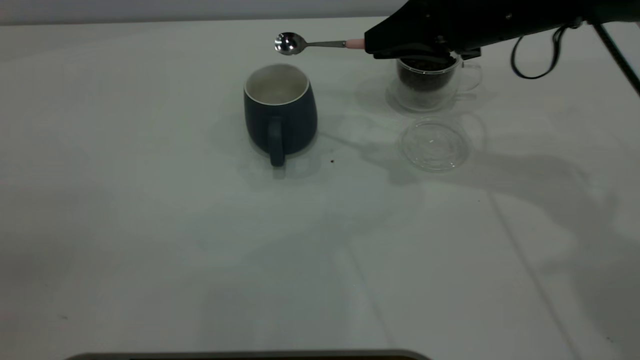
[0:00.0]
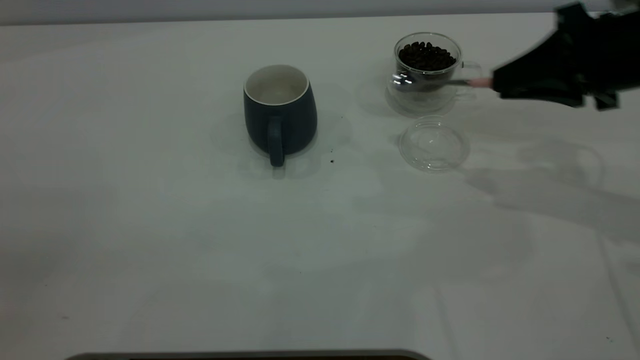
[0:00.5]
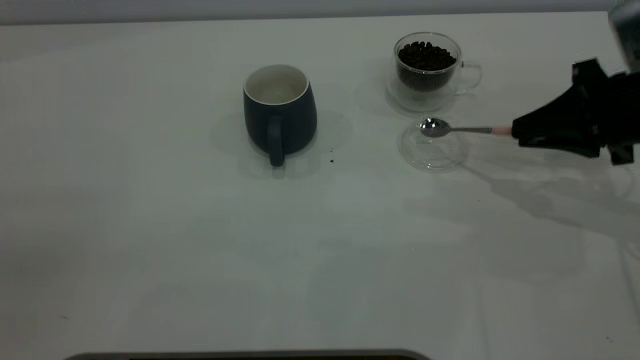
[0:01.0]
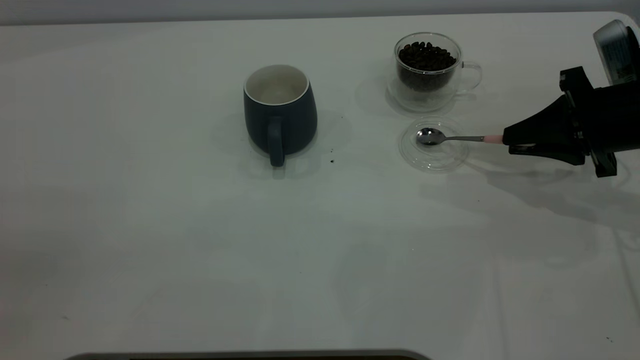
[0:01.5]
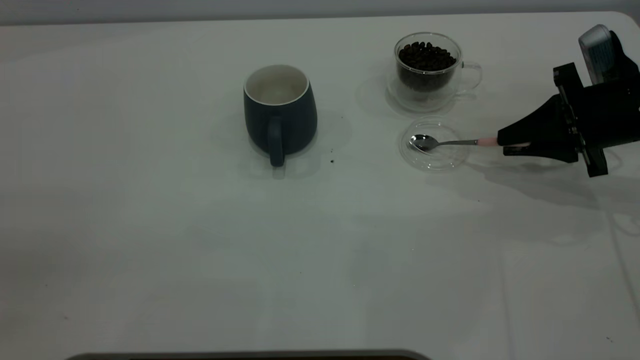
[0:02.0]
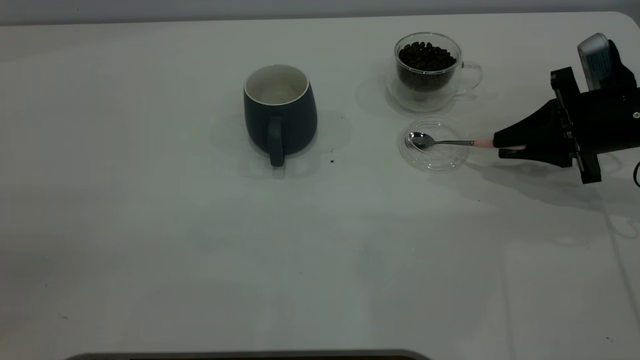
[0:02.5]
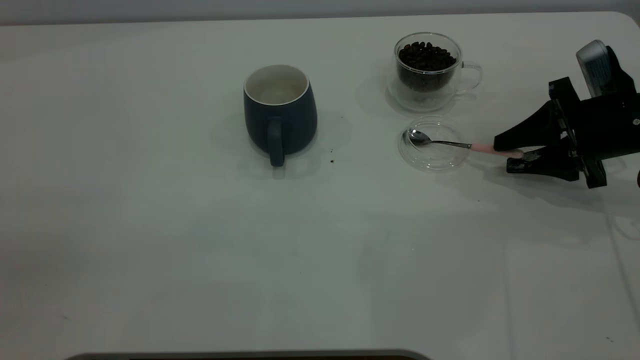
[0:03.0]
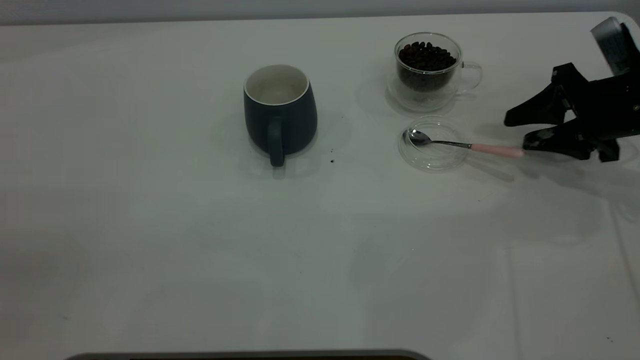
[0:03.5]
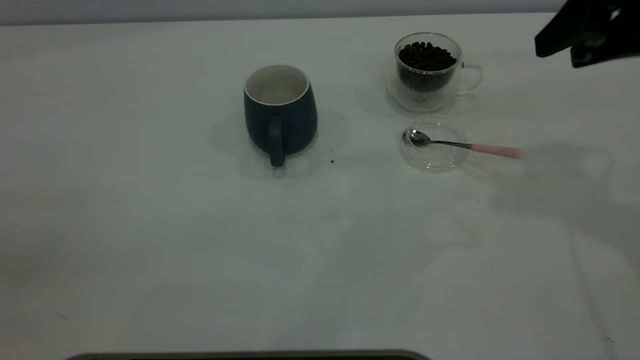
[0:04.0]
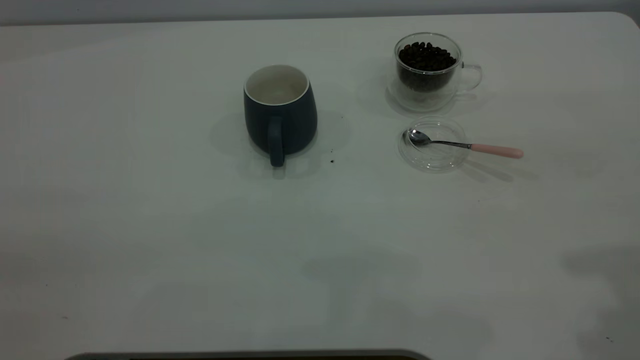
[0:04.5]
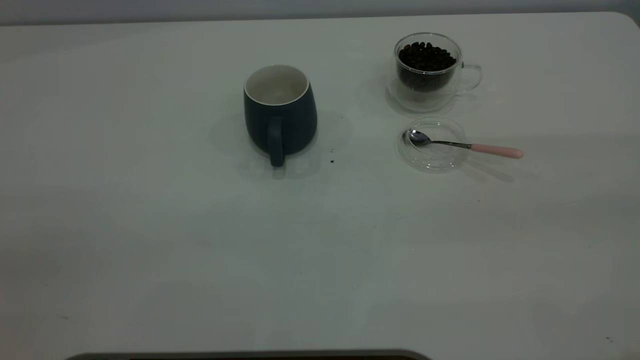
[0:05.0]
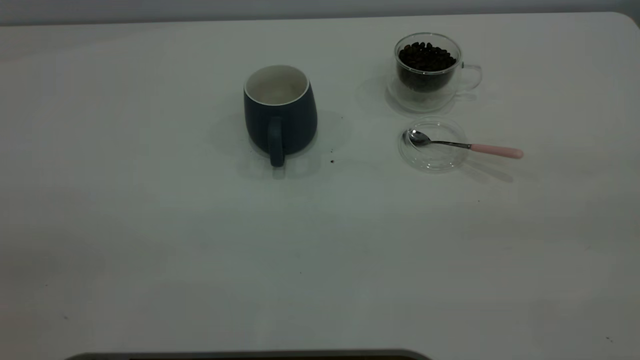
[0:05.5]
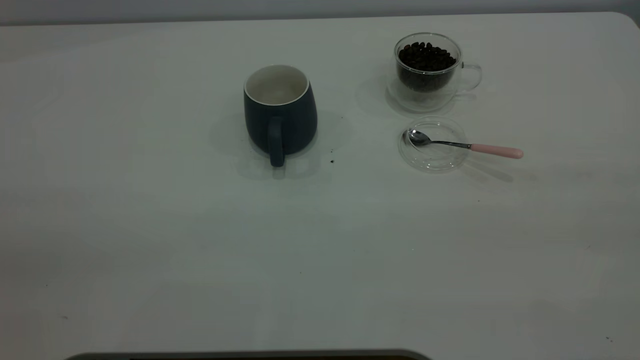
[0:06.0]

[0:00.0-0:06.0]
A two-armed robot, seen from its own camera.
Task of the whole recording: the left gripper place the grey cup in the center of the table, the right gripper take the pink spoon from the cup lid and scoop out the coffee beans from the coffee cup and put them into the grey cup, the right gripper put the spoon back into the cup lid.
Step, 0:00.0 to 0:03.5: Place the spoon back in its original place.
0:00.0 to 0:02.0: The right gripper goes roughly 15 cm to the right and downward.
0:02.0 to 0:04.0: The right gripper shifts approximately 20 cm upward, and opens.
0:04.0 to 0:06.0: The right gripper travels backward by approximately 30 cm.

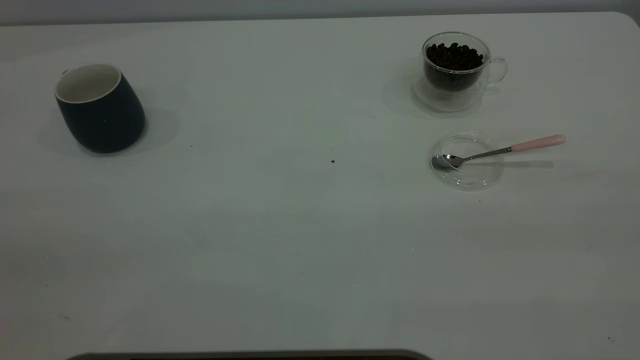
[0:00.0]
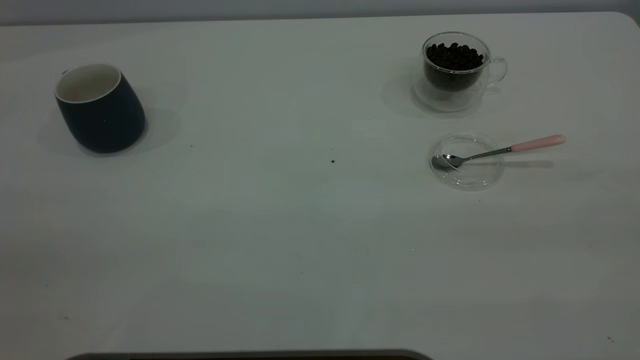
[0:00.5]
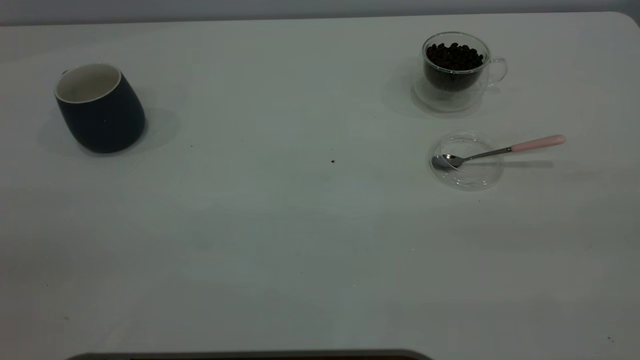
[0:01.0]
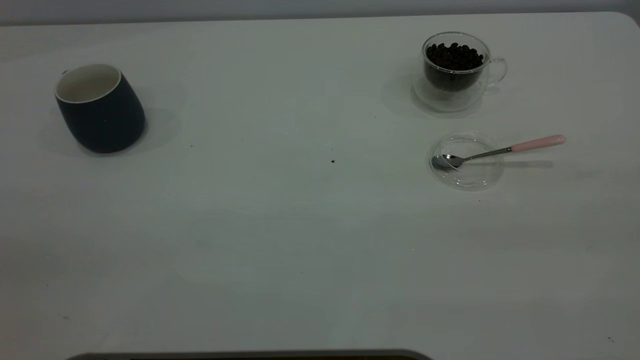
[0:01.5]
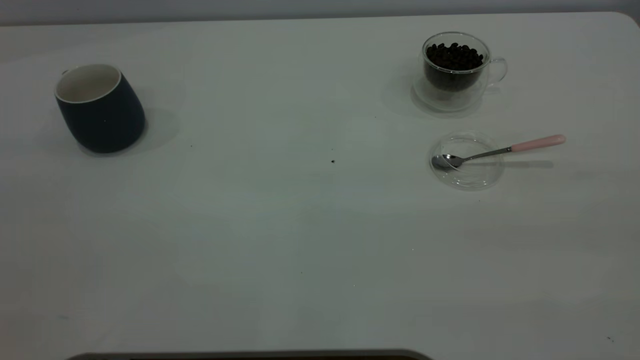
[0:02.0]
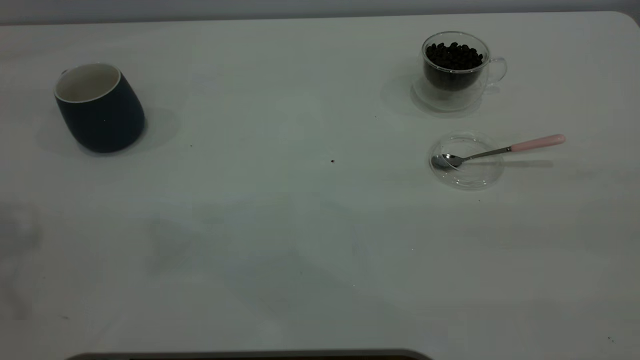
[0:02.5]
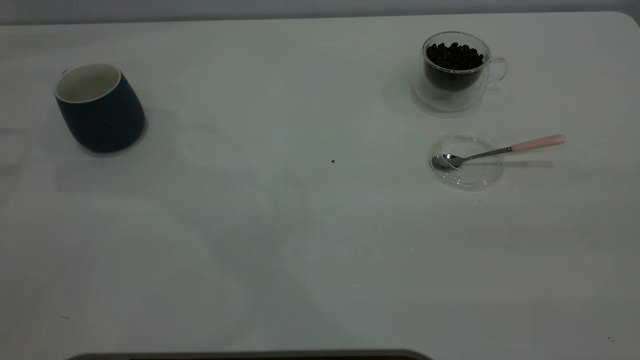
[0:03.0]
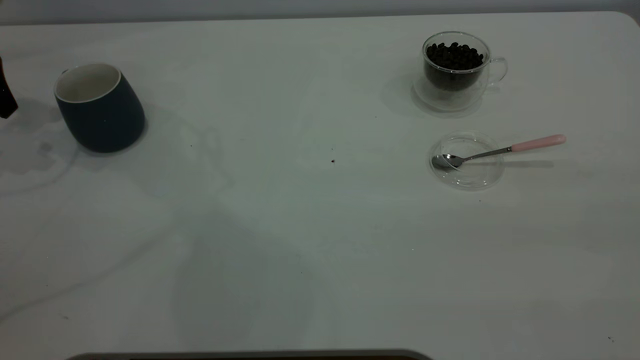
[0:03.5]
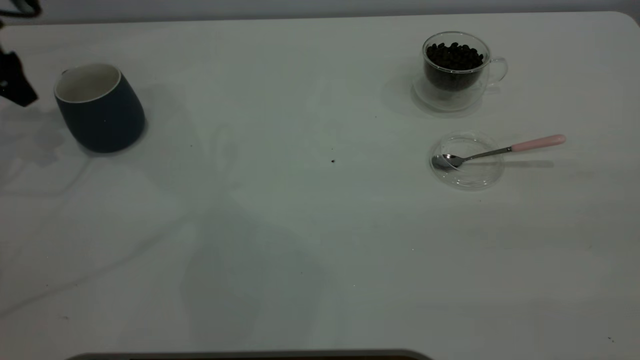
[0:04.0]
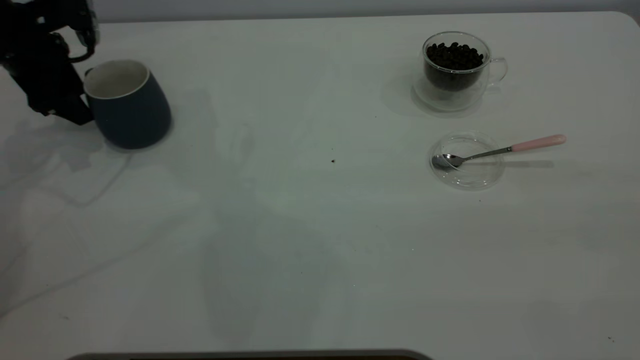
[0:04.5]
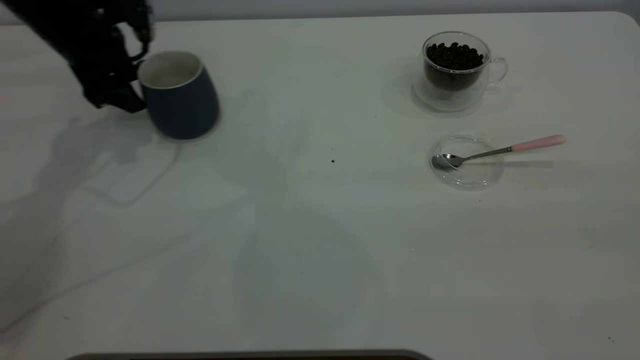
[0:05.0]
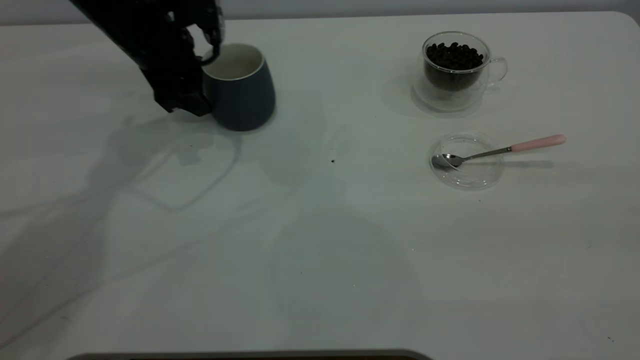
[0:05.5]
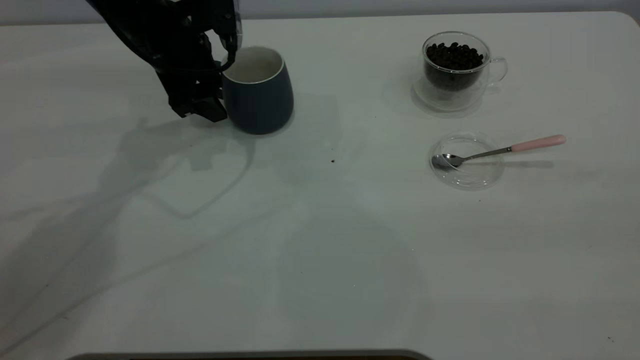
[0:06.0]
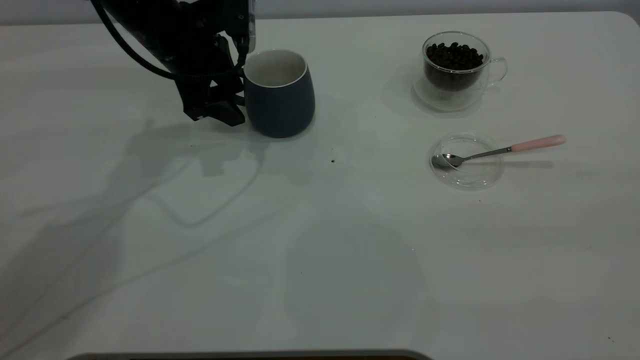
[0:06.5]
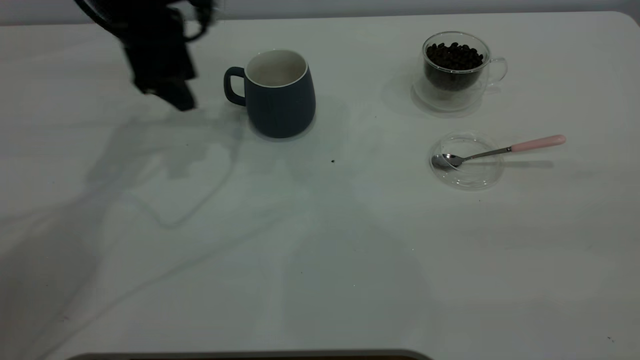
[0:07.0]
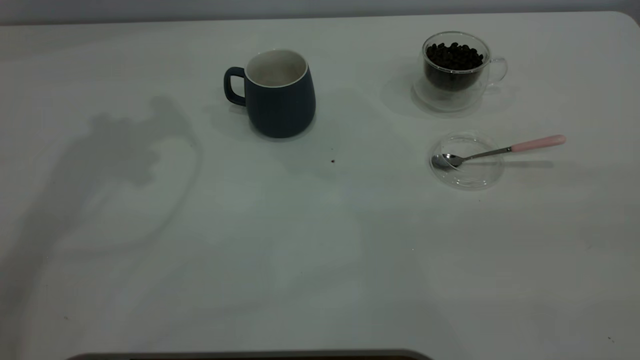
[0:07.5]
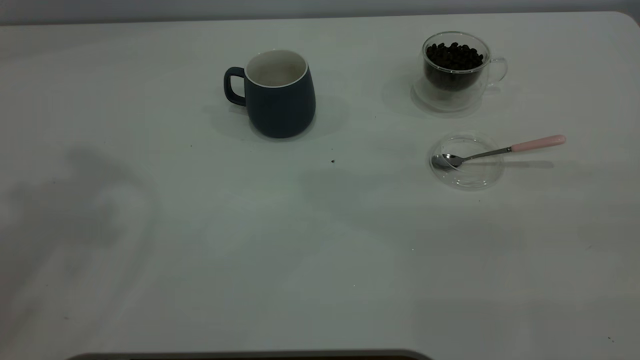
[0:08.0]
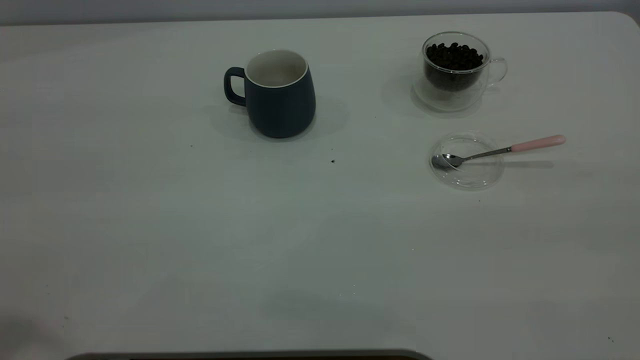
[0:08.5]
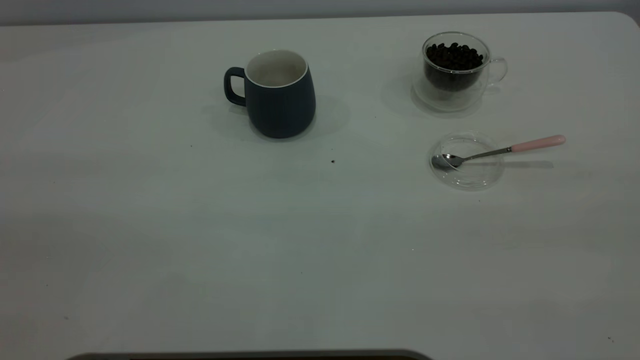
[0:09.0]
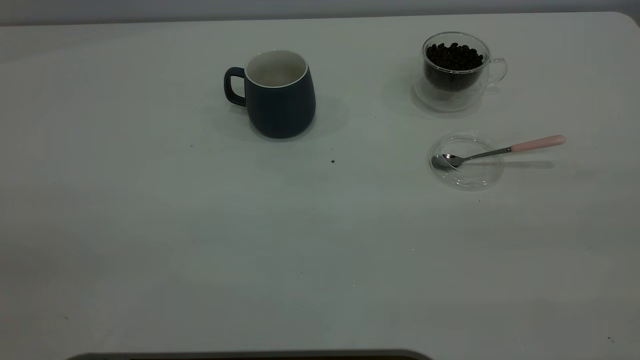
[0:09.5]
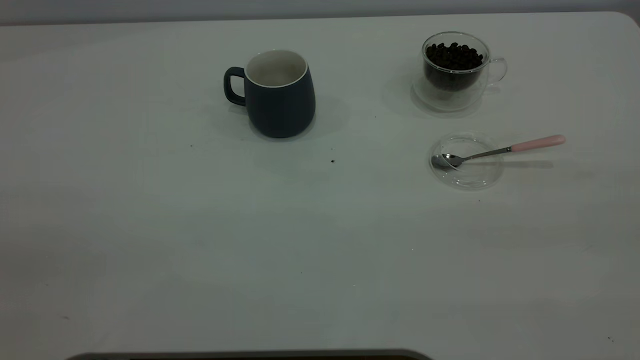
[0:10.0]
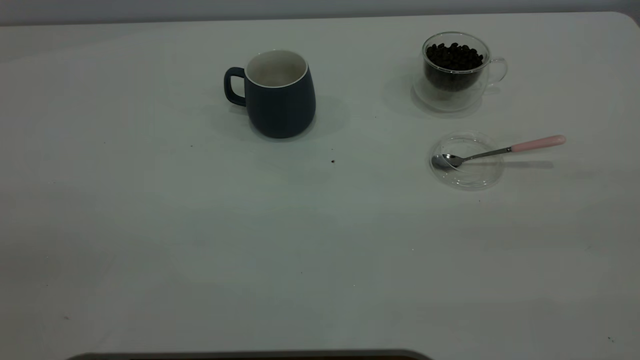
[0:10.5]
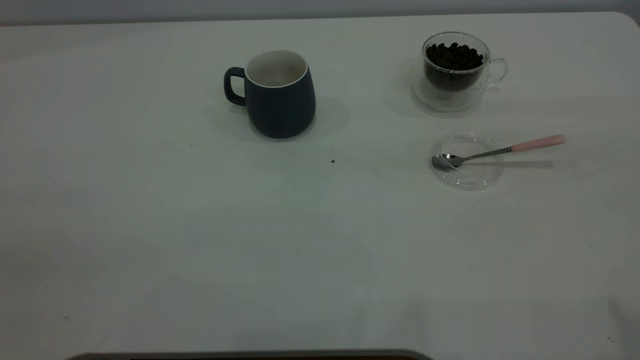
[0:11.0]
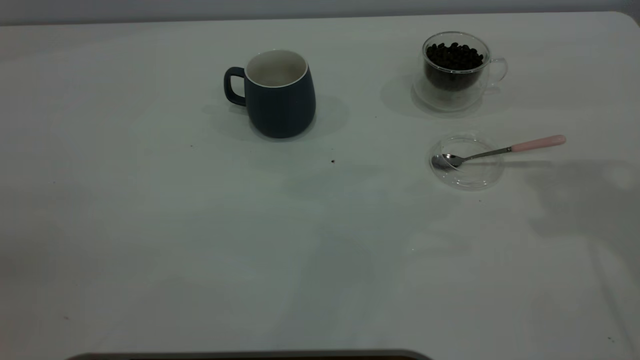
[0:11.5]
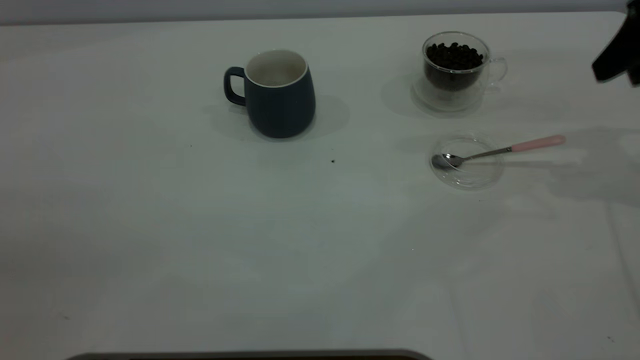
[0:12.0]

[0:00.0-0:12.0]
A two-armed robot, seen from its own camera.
Task of the whole recording: the left gripper place the grey cup in the center of the table, the right gripper take the pink spoon from the cup lid and scoop out the coffee beans from the coffee cup and put them into the grey cup, the right gripper put the spoon back into the cup lid.
Step, 0:00.0 to 0:06.5: Move the cup to the center of view.
0:02.0 to 0:04.0: The left gripper is displaced forward and downward by roughly 50 cm.
0:04.0 to 0:06.0: The left gripper goes roughly 20 cm to the right.
0:06.0 to 0:08.0: The left gripper heads upward and backward, covering about 40 cm.
0:10.0 to 0:12.0: The right gripper heads forward and downward, covering some 40 cm.

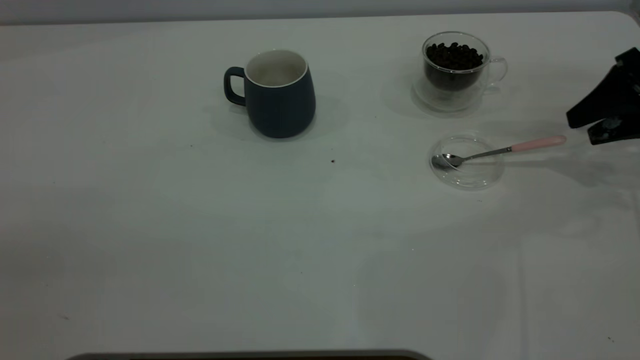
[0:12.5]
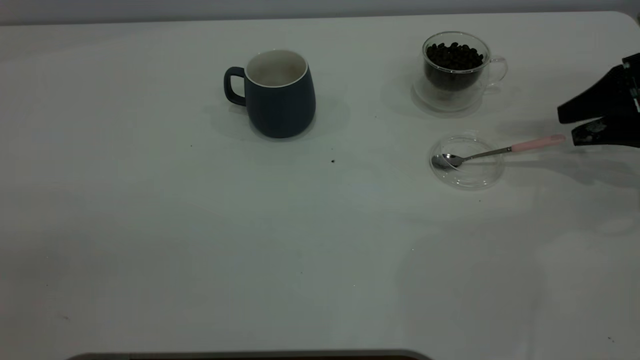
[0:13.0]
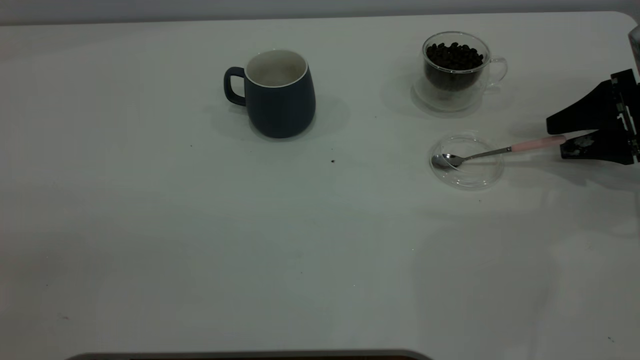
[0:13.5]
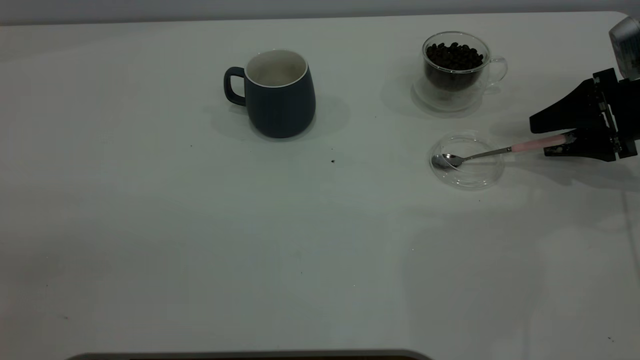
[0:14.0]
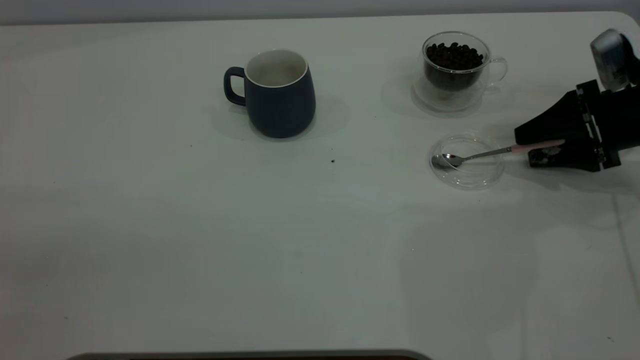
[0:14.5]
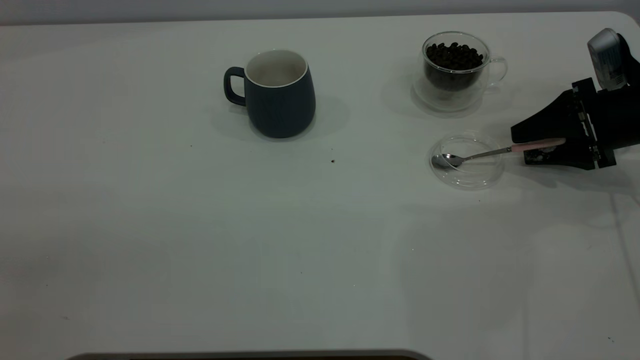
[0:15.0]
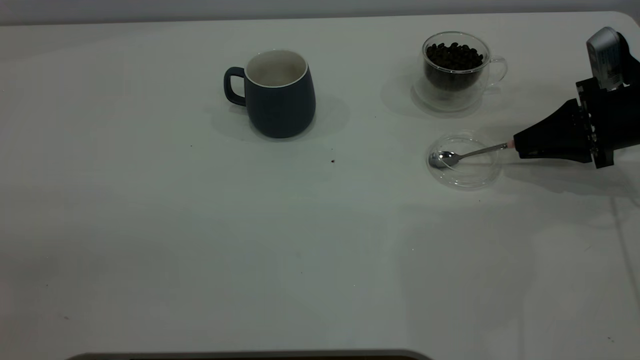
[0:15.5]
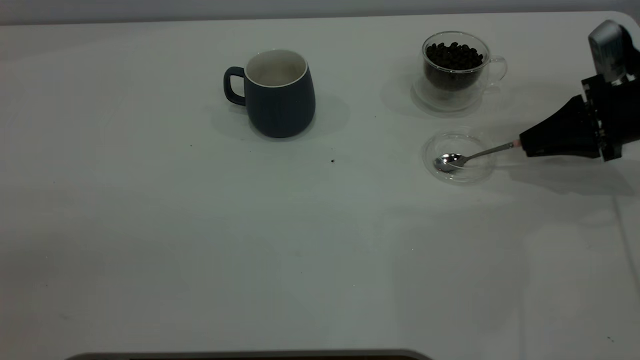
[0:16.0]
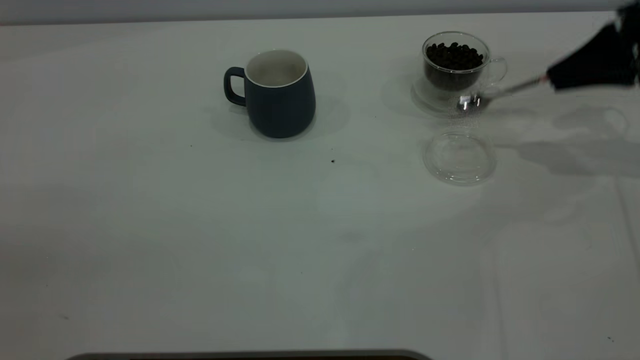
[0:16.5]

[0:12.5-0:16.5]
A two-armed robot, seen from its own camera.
Task of the whole recording: the left gripper place the grey cup in the center of the table, the right gripper take the pink spoon from the cup lid and scoop out the coffee beans from the coffee cup and put them into the grey cup, the right gripper put the spoon back into the cup lid.
Step, 0:12.5 to 0:16.0: Pick up the spoon.
0:12.5 to 0:14.5: The right gripper moves downward, some 5 cm.
0:14.5 to 0:16.5: The right gripper is displaced upward by some 10 cm, and closes.
